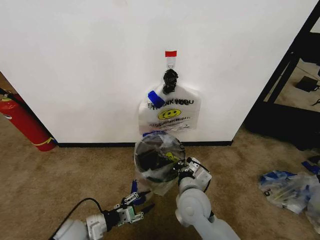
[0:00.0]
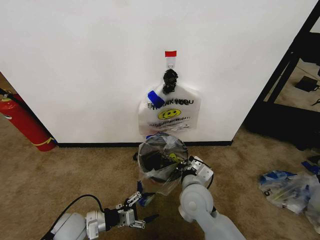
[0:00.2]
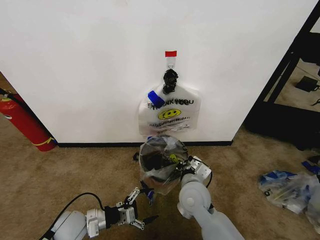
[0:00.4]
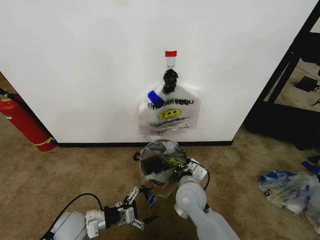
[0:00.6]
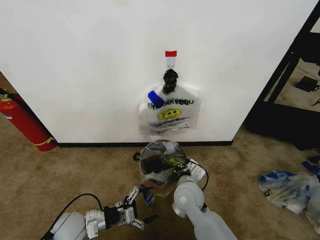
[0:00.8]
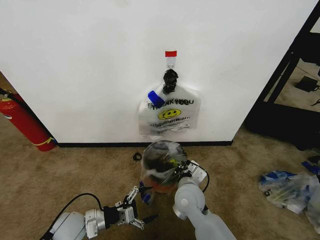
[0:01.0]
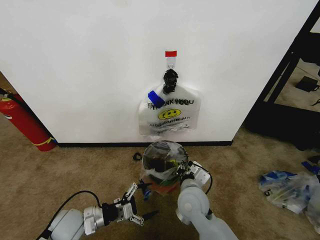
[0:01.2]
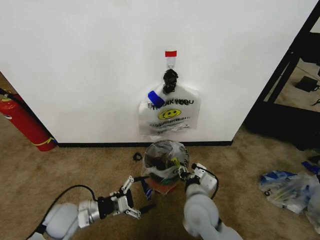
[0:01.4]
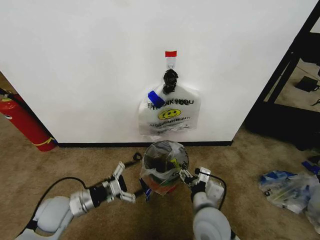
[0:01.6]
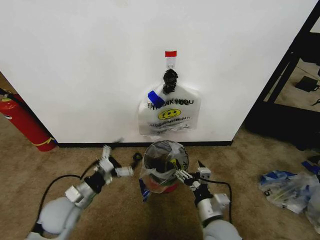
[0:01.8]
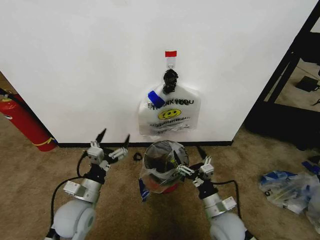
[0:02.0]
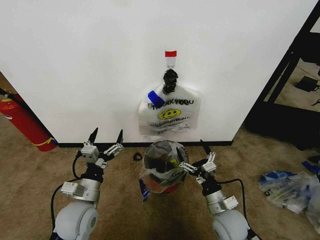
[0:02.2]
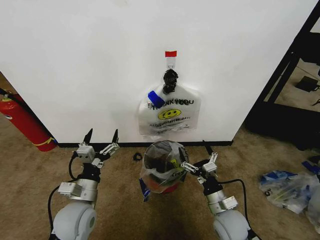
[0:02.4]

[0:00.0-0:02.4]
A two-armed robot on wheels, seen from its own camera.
Task of the whole recording: Pick up the garbage bag from the wall and place it over the trash bin.
0:00.0 to 0:01.2: The right gripper opens. Meanwhile the left gripper opens.
0:01.2 to 0:02.4: The right gripper travels to the right and downward by some 15 cm, and opens, while the left gripper goes some 10 cm upward and to the right.

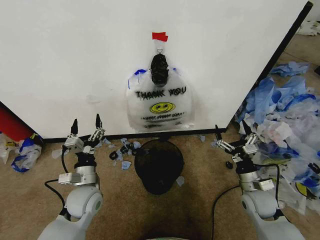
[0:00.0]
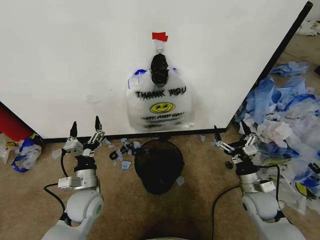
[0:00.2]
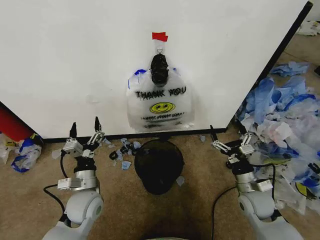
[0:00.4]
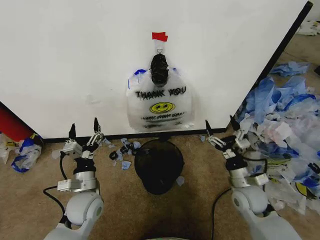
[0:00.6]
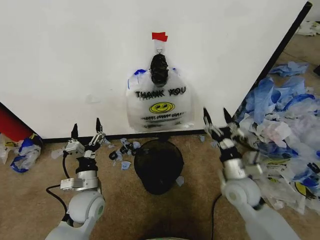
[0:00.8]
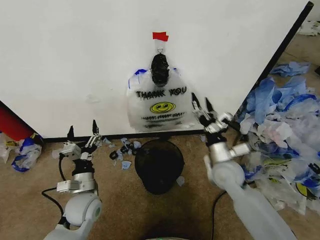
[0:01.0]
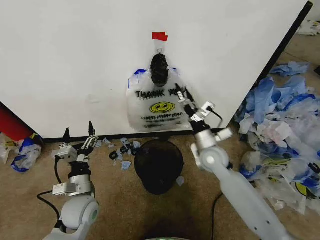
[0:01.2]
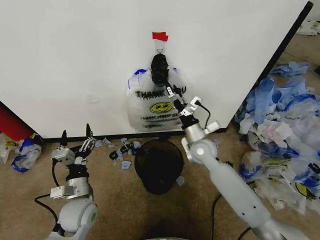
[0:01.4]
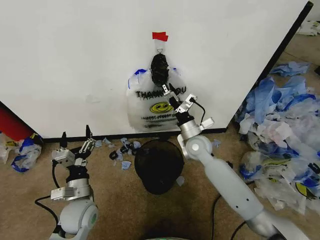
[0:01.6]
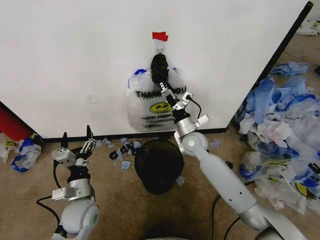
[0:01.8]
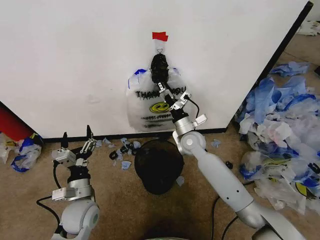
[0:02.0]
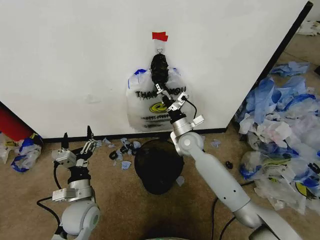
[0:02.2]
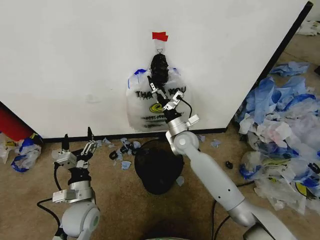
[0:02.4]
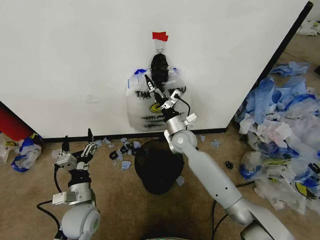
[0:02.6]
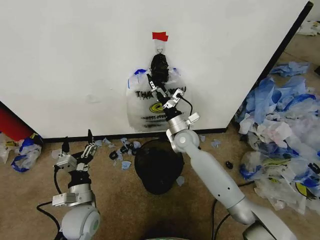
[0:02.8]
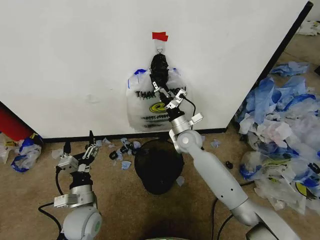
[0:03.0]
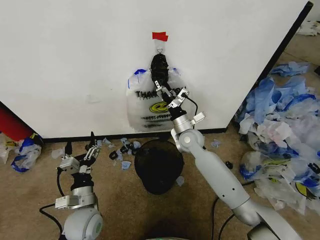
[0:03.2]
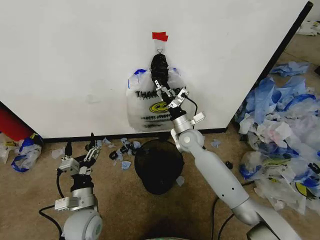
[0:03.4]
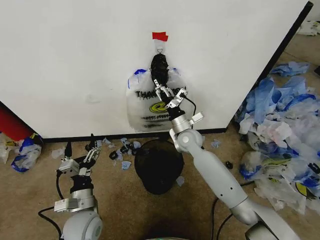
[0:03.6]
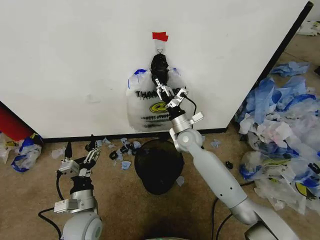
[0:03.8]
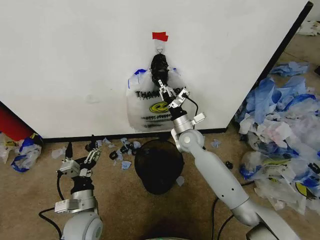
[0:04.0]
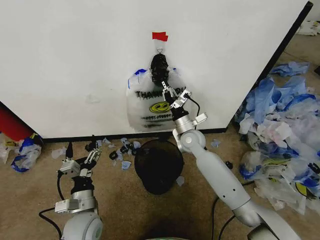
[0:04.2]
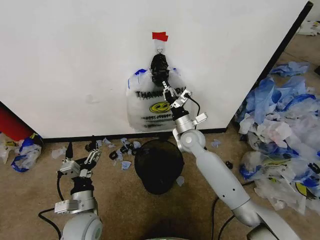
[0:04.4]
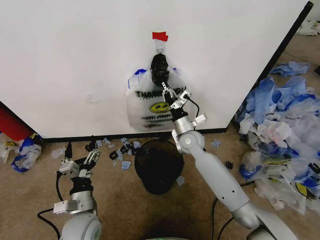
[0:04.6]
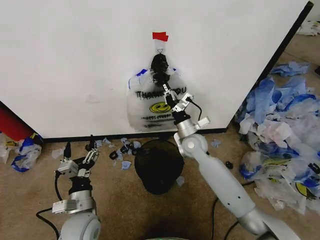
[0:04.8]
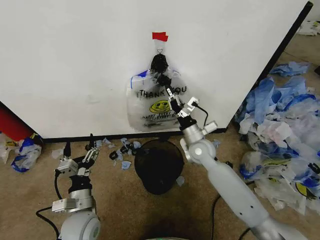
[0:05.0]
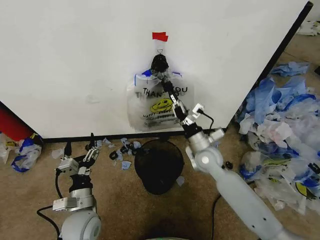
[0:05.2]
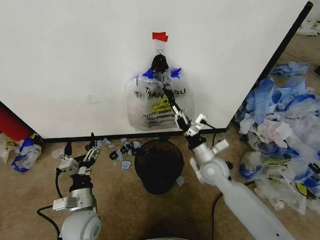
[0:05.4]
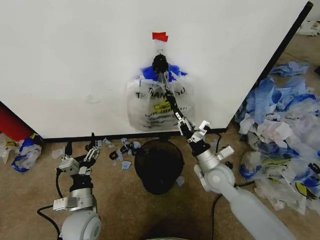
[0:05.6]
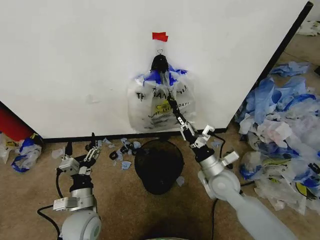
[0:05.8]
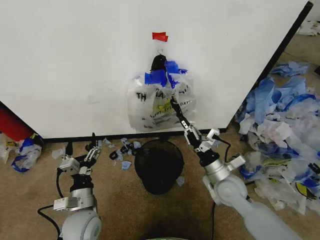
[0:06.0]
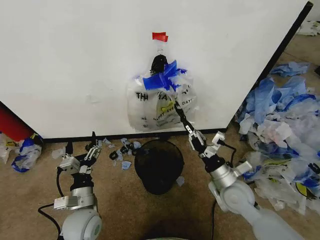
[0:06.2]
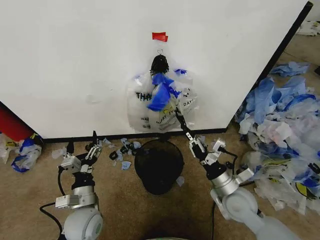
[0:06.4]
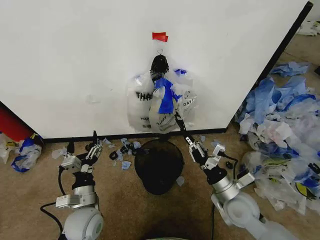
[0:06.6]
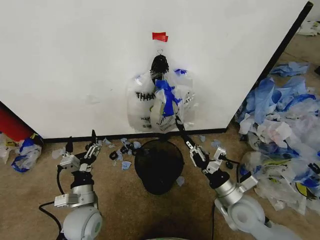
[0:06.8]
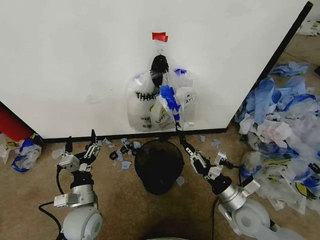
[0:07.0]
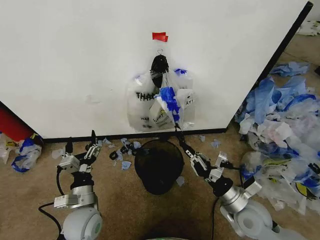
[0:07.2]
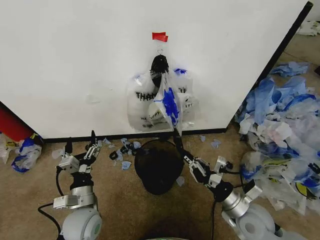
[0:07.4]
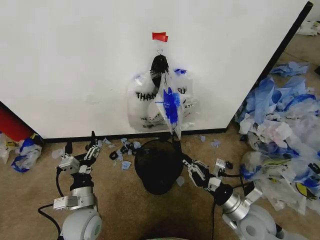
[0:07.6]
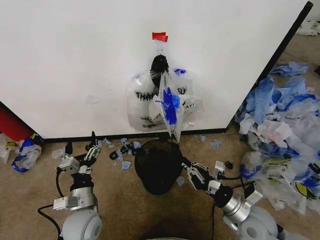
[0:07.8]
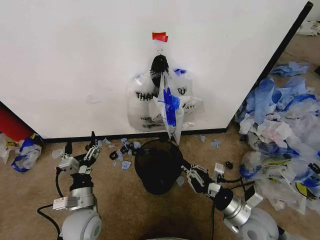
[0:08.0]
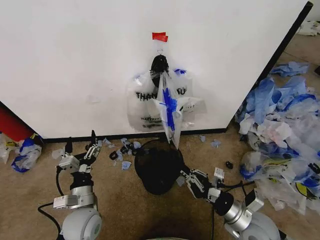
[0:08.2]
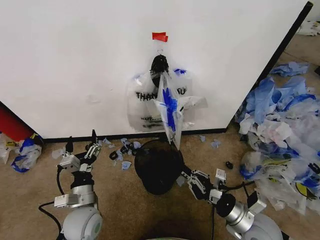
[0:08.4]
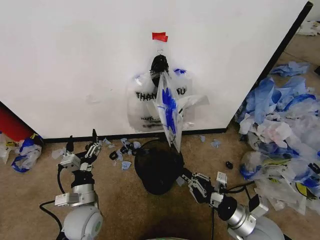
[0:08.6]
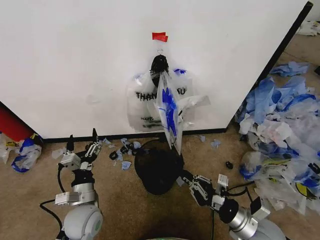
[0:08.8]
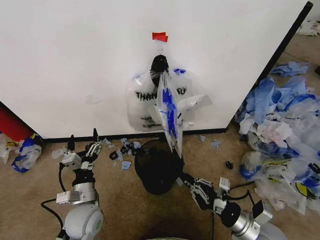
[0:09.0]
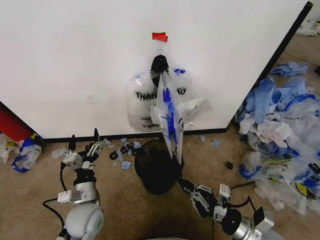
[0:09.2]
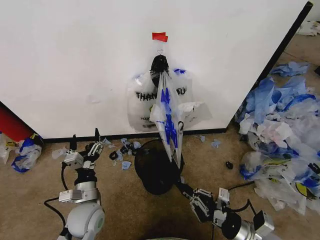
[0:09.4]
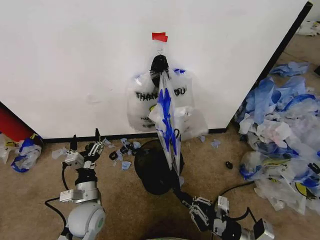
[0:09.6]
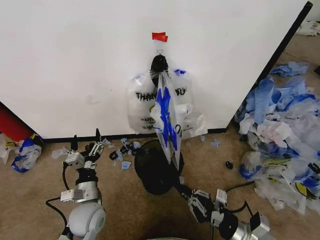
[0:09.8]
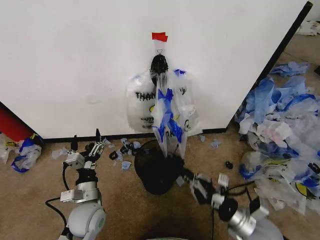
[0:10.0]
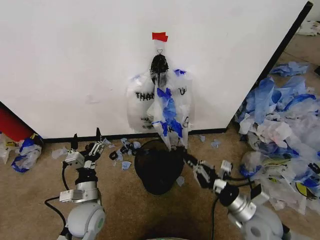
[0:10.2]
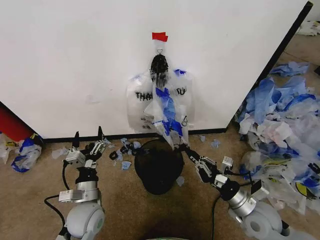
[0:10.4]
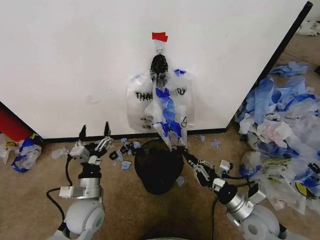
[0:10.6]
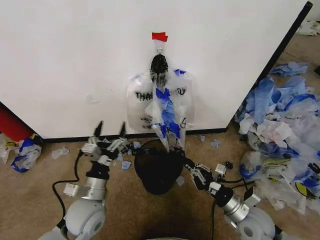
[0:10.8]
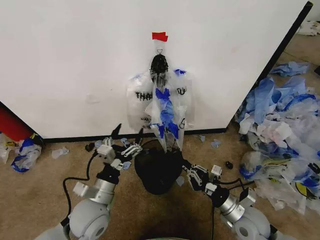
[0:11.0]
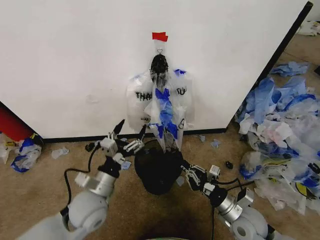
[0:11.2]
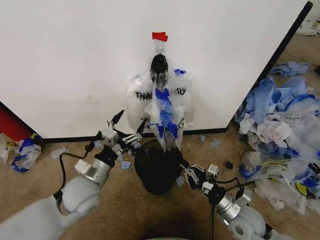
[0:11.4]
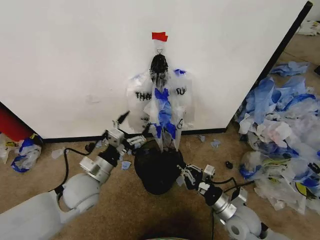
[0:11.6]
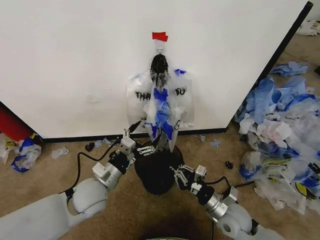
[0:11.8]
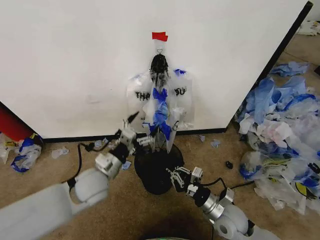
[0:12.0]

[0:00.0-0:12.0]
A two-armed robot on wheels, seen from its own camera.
Task of the whole recording: Pick up the garbage bag from the wall and place it over the trash bin.
0:01.6 to 0:03.0: The grippers stay close to where they were, moving slightly.
0:03.0 to 0:04.4: The right gripper closes up.
0:04.4 to 0:06.0: The right gripper goes roughly 20 cm backward and to the right.
0:06.0 to 0:07.6: The right gripper travels backward by roughly 10 cm.
0:07.6 to 0:09.0: There are only small adjustments of the grippers.
0:09.0 to 0:10.4: The right gripper is displaced forward by some 5 cm.
0:10.4 to 0:12.0: The left gripper heads upward and forward, covering some 10 cm. Meanwhile the right gripper goes approximately 10 cm to the left and downward.

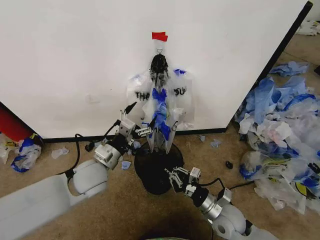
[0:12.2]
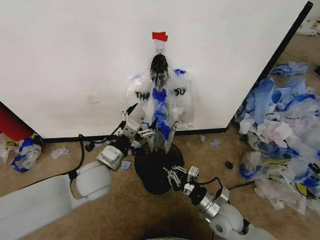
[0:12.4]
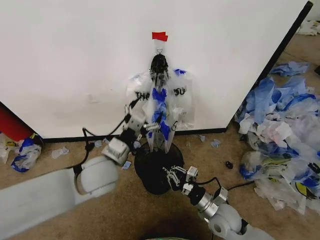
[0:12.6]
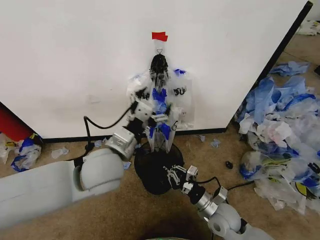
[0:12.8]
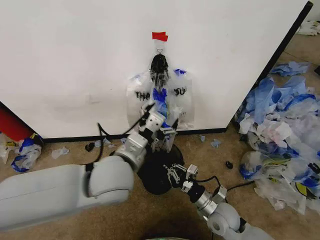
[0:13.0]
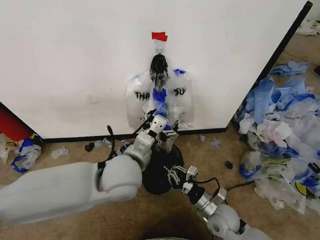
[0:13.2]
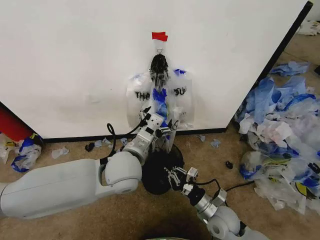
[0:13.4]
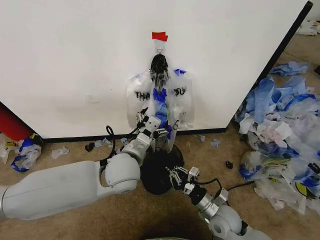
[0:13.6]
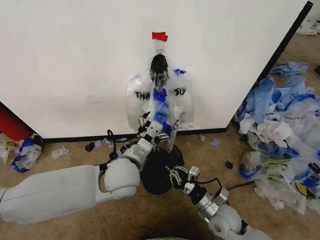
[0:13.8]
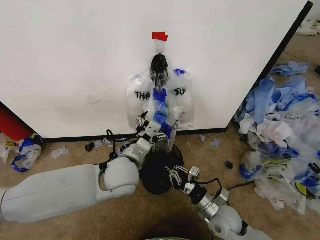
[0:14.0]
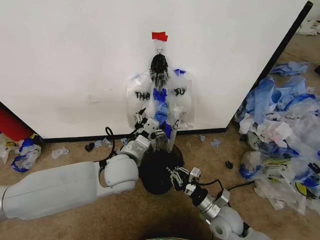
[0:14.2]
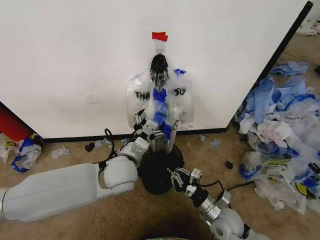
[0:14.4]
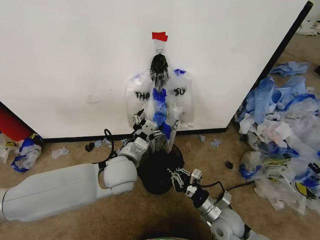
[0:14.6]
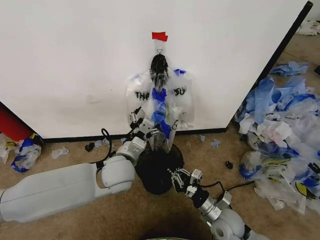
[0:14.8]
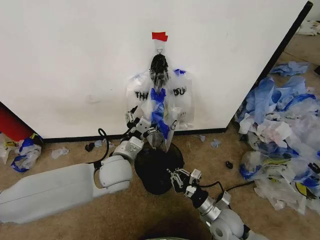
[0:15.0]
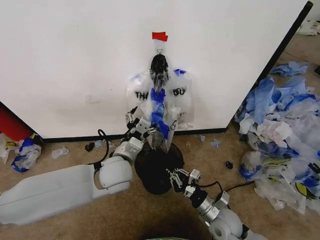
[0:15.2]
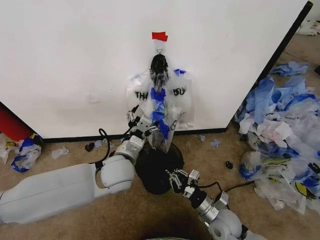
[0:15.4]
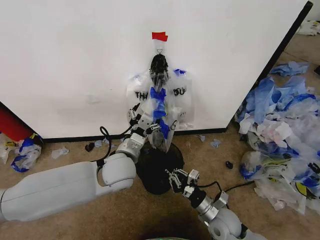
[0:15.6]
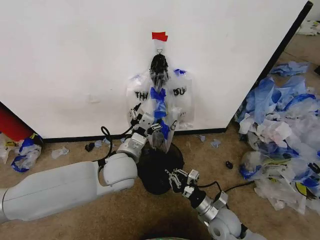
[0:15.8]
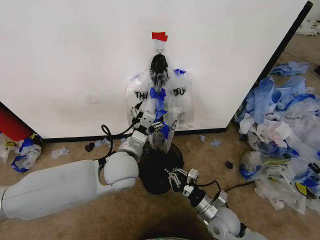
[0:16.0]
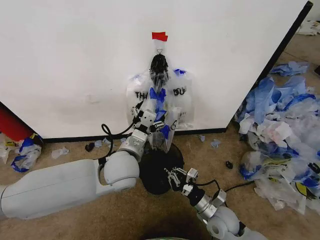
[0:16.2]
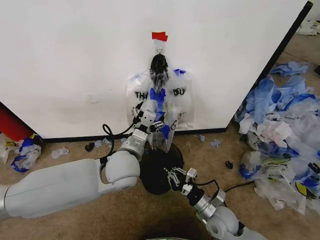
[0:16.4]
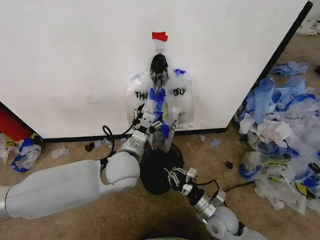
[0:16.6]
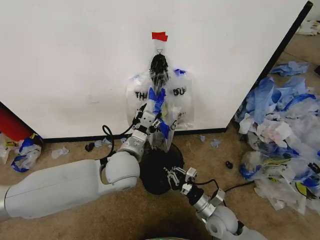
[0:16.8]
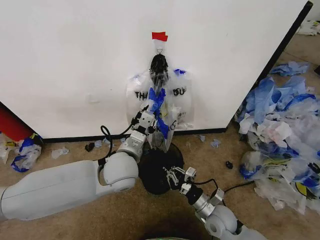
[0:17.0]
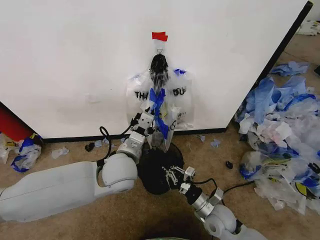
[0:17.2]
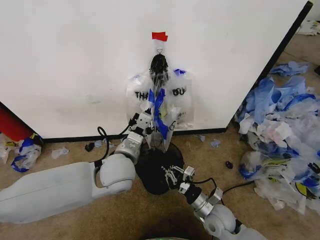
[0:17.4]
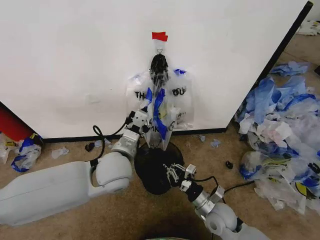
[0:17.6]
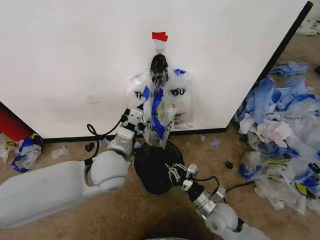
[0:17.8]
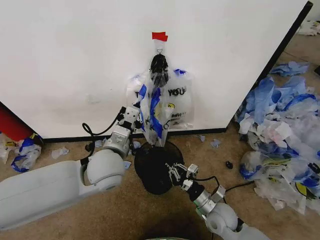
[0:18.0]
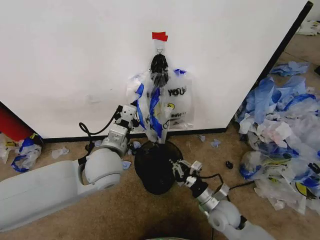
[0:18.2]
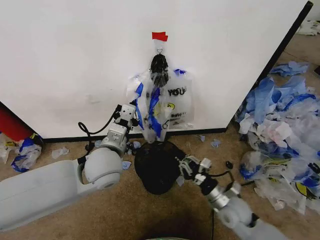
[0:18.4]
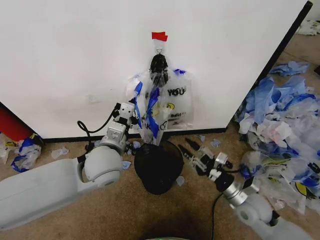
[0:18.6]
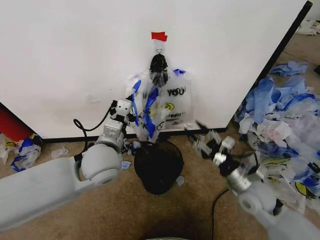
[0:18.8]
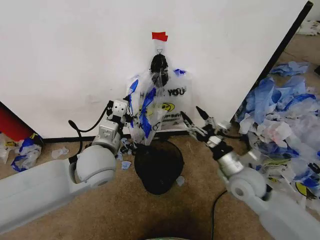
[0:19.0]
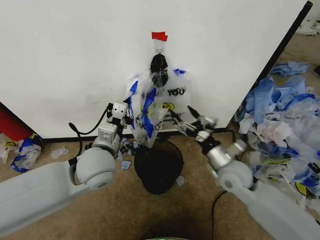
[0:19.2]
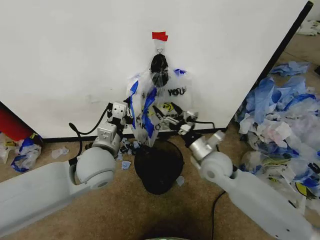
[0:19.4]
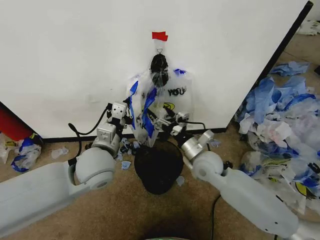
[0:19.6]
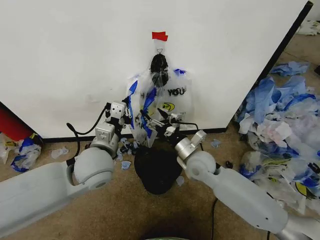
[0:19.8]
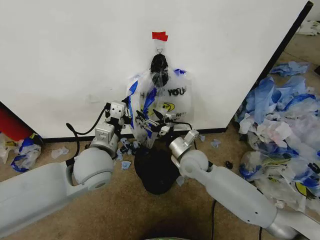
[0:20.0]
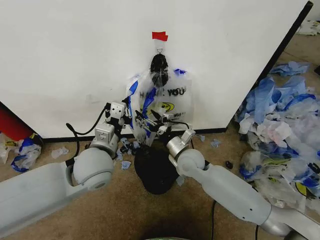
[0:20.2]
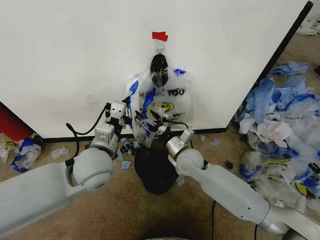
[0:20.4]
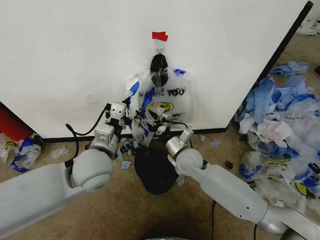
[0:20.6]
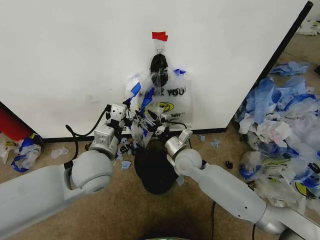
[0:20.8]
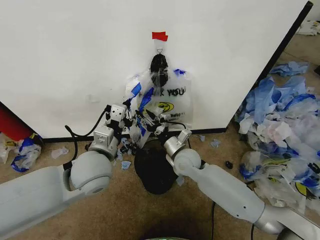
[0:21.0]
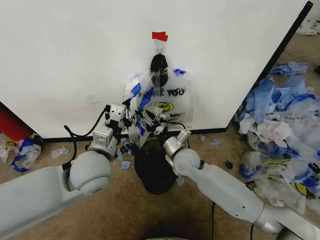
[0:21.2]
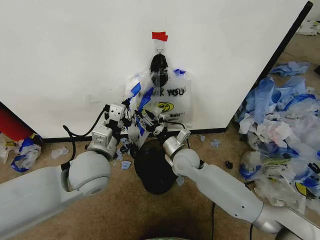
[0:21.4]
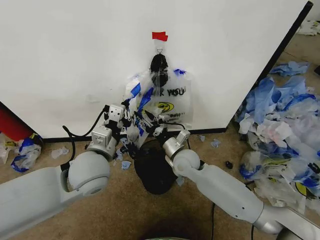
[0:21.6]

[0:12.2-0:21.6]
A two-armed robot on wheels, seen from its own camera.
Task of the whole recording: Pick up the garbage bag from the wall and place it over the trash bin.
0:12.2 to 0:13.8: The left gripper moves to the right, roughly 10 cm.
0:13.8 to 0:15.4: The grippers move only a little.
0:15.4 to 0:17.0: The left gripper closes its fingers.
0:17.0 to 0:18.4: The right gripper shifts some 5 cm to the right, while the left gripper closes up.
0:18.4 to 0:20.0: The right gripper shifts approximately 20 cm to the left, forward and upward, and opens its fingers.
0:20.0 to 0:21.6: The right gripper closes up.
